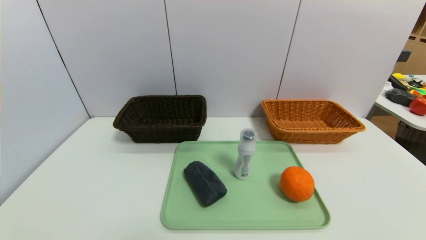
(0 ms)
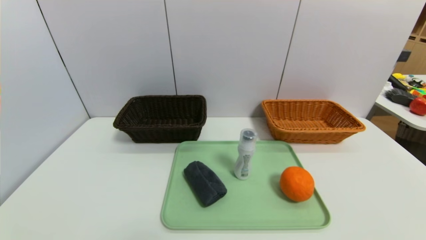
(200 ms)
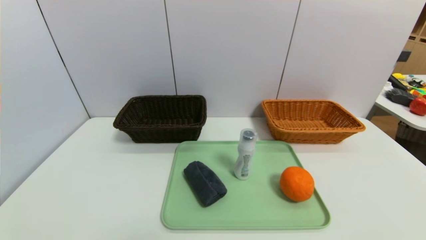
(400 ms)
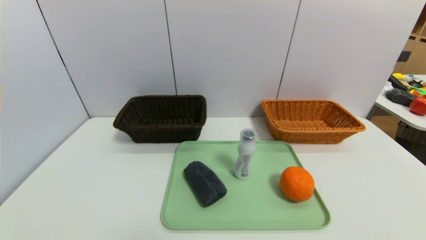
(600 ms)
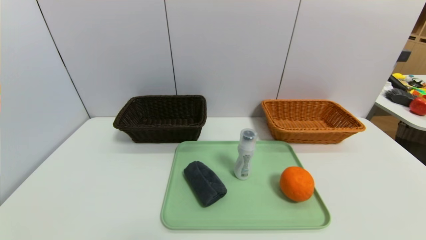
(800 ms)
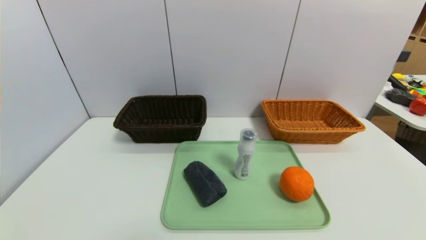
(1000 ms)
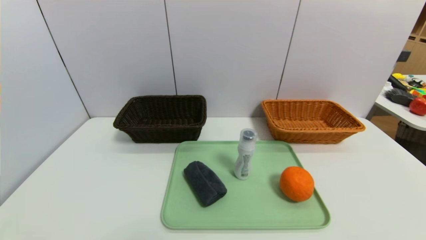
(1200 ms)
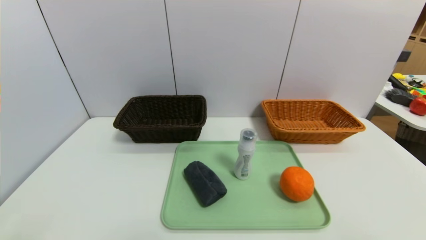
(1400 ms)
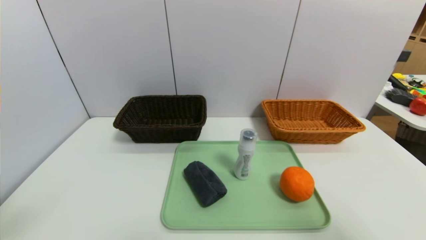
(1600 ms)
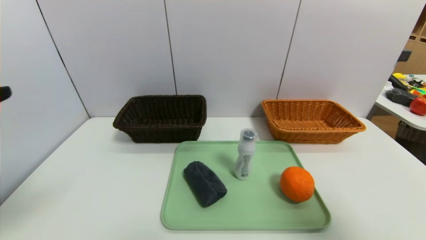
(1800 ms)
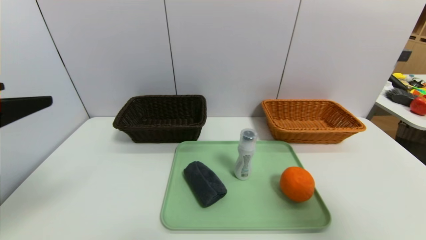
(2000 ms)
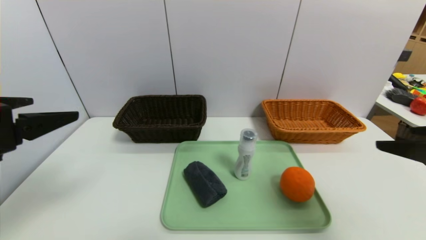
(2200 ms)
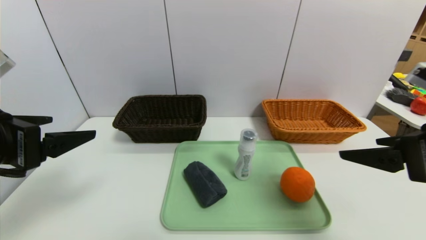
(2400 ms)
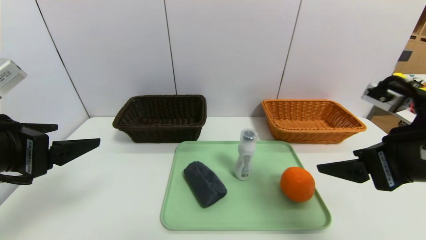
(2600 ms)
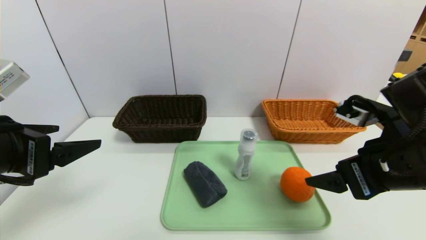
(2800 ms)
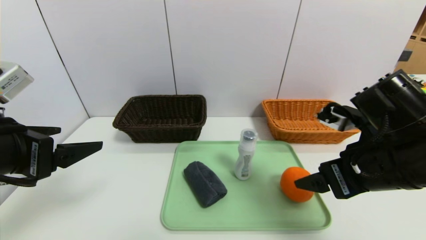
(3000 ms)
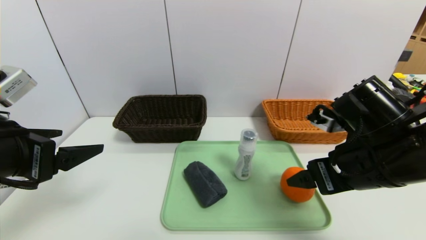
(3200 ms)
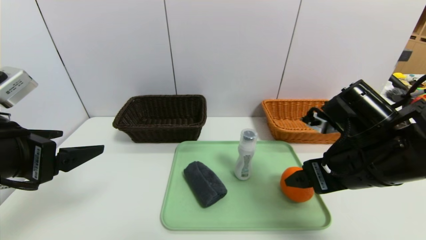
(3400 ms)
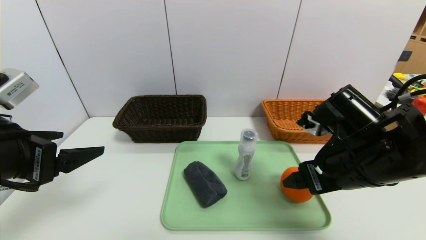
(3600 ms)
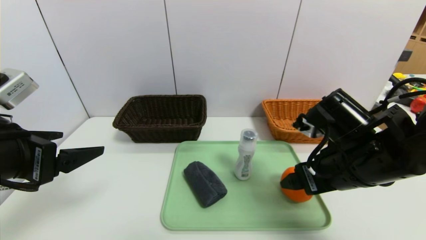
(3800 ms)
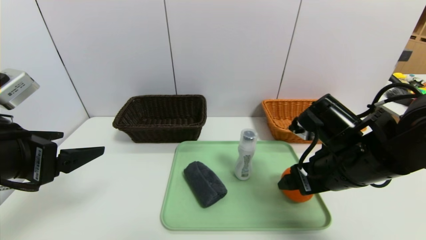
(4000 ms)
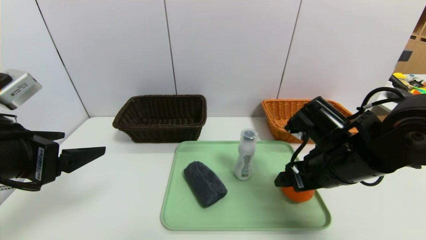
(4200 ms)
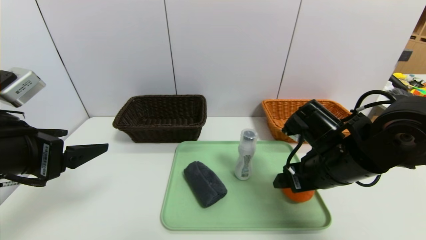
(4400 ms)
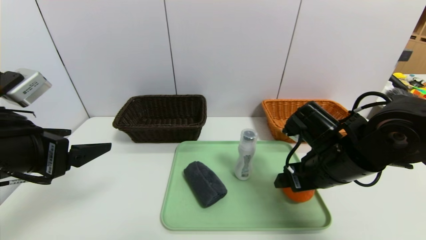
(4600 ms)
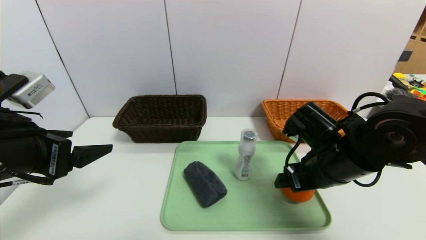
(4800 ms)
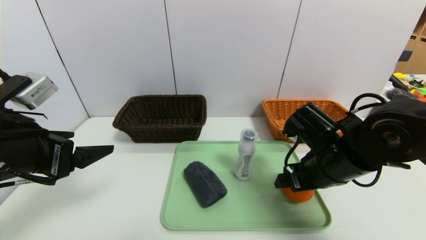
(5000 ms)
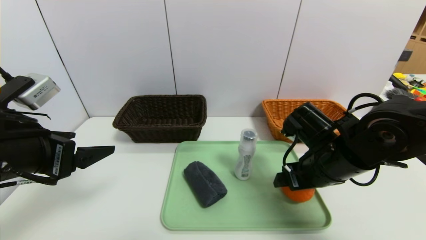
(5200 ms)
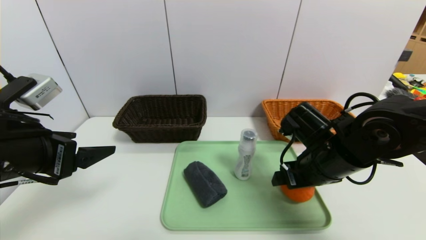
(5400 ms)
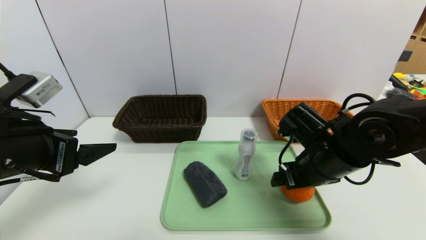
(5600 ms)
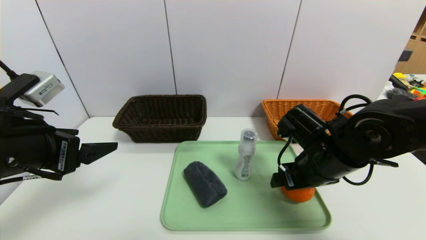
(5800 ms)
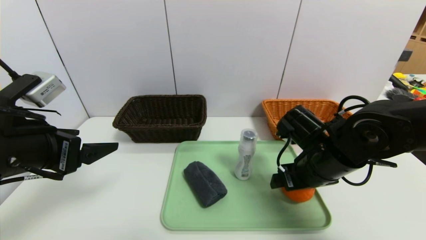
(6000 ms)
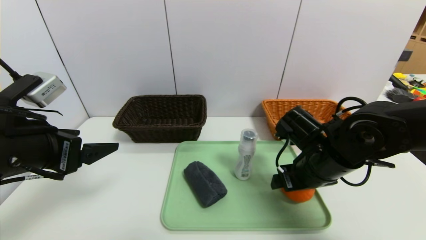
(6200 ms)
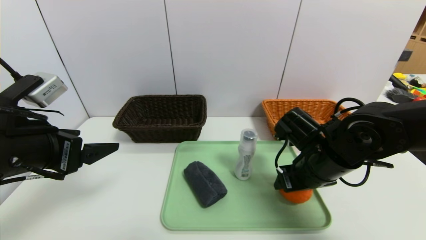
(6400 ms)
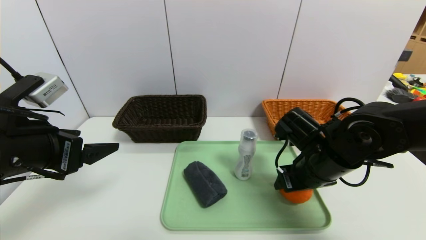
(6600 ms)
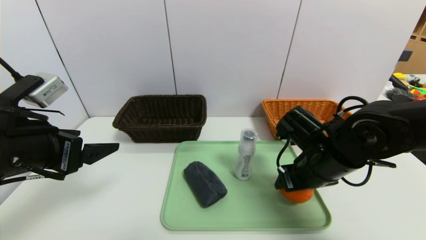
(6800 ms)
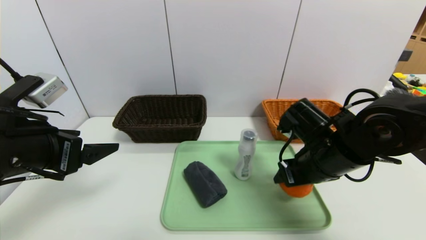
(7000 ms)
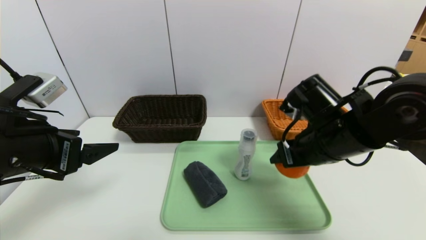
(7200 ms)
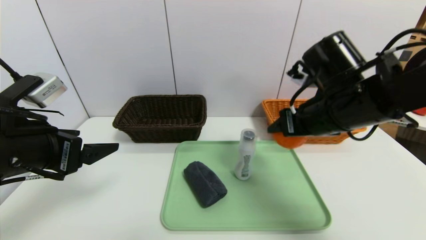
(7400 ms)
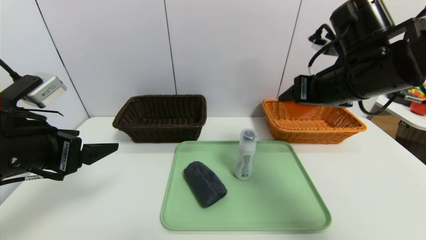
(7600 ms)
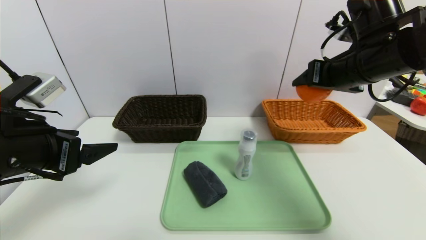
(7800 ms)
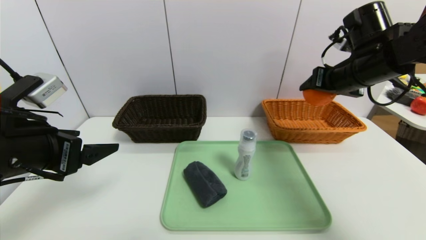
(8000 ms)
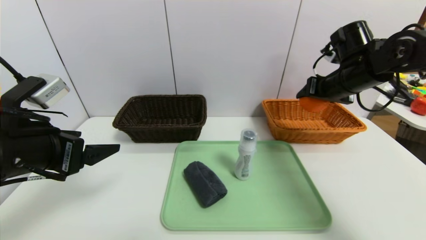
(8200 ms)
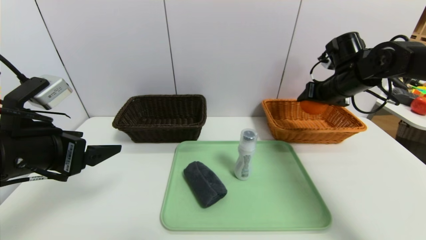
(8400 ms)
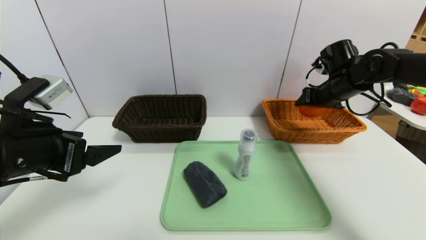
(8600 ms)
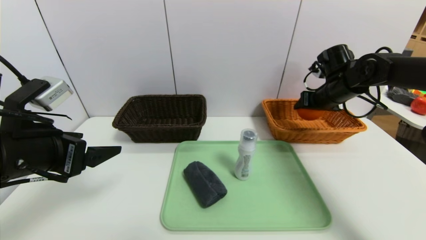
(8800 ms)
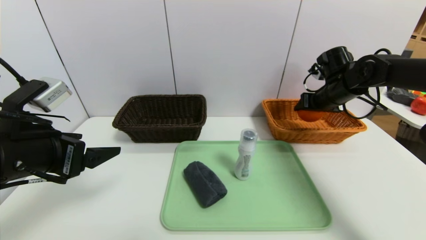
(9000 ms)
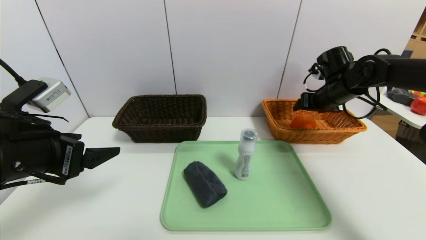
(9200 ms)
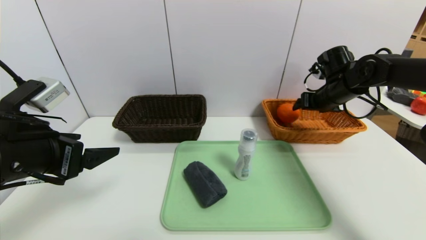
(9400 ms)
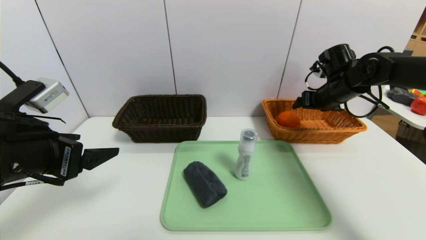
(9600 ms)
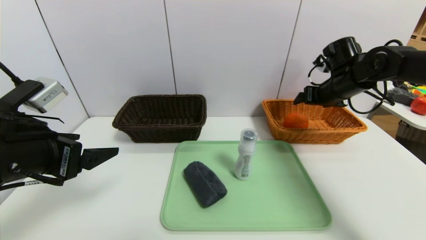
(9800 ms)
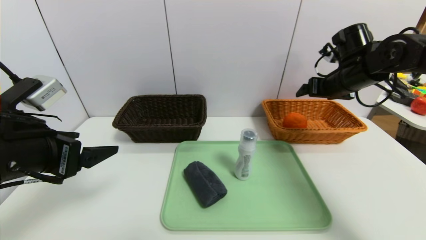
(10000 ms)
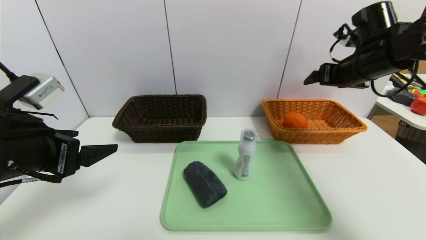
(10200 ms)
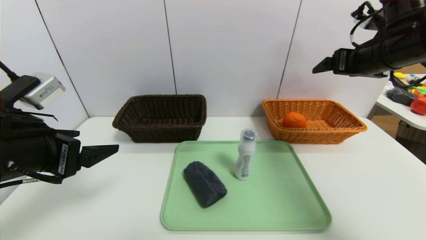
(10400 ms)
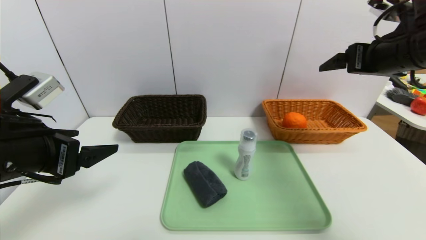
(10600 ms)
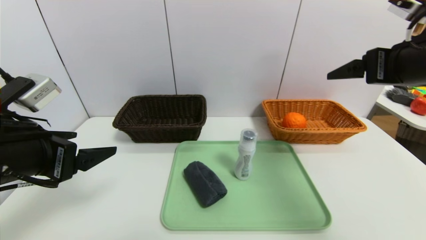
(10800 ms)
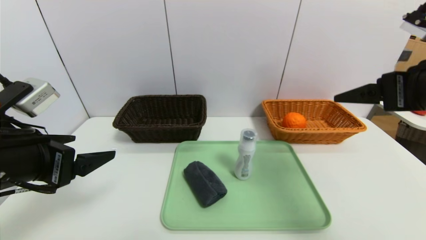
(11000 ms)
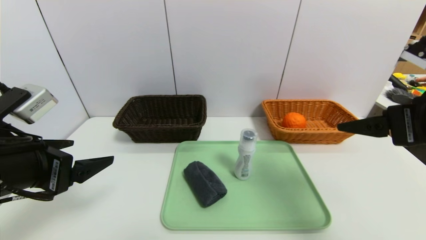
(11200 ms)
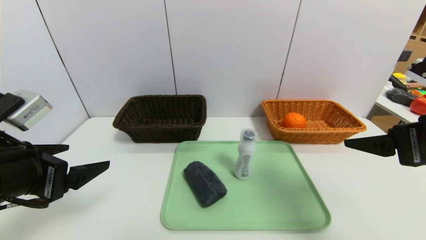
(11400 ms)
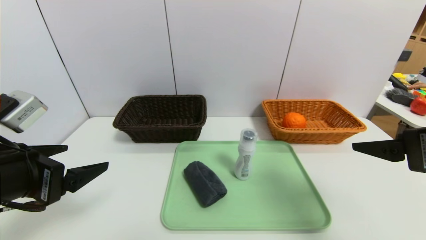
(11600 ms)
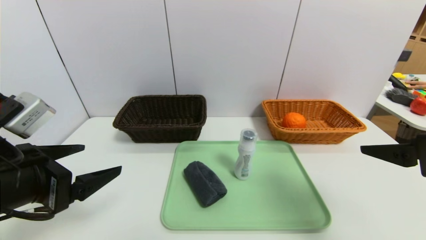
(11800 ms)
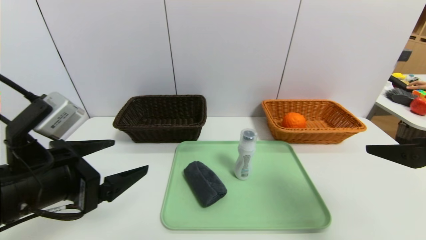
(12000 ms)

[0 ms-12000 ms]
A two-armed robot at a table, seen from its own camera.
Task of the whole recording: place the food in the right basket with the right gripper, and place the non food items in the left basket with the left gripper.
Step, 0 ms to 9600 ms: Grasp the orange and put it in the right basket.
0 ms to 1600 ms: The right gripper travels upward by about 25 cm.
1600 ms to 3000 ms: The left gripper travels forward and downward by some 10 cm; the right gripper is displaced forward, to the left and downward by approximately 20 cm.
3000 ms to 4400 ms: The right gripper heads downward, covering some 5 cm.
4400 ms to 6000 ms: The grippers make only small movements.
6000 ms to 7600 ms: The right gripper moves upward, some 15 cm, and closes its fingers.
7600 ms to 9000 ms: The right gripper travels forward, to the right and downward by about 20 cm.
9000 ms to 10400 ms: The right gripper is displaced upward and backward by about 15 cm, and opens.
10400 ms to 12000 ms: The right gripper shifts approximately 20 cm backward.

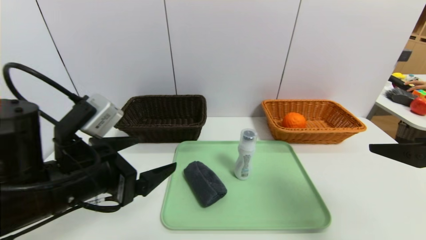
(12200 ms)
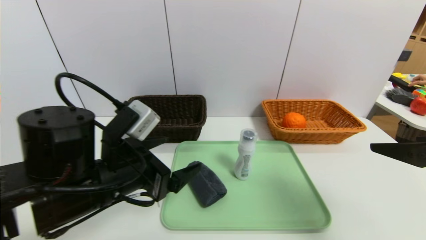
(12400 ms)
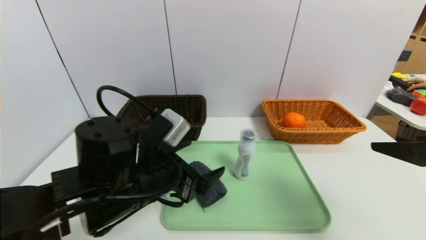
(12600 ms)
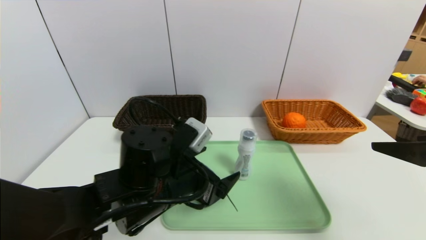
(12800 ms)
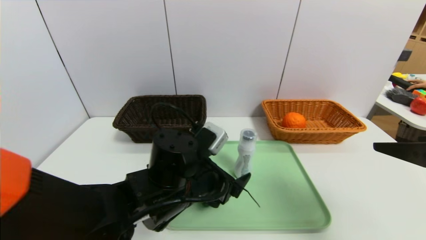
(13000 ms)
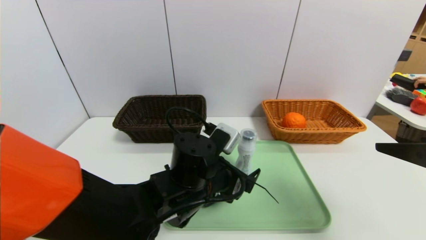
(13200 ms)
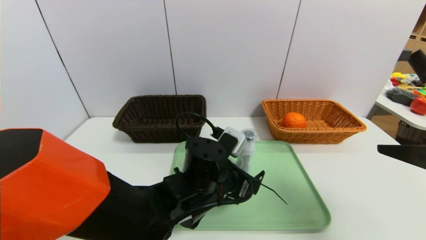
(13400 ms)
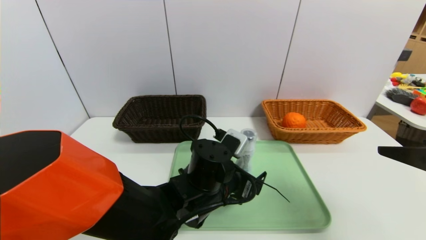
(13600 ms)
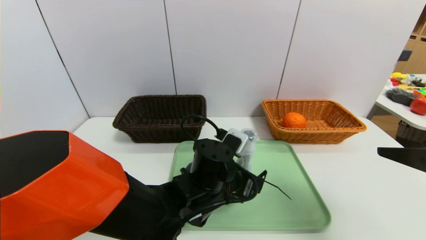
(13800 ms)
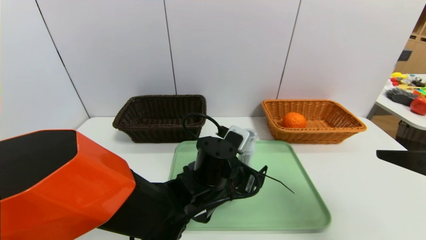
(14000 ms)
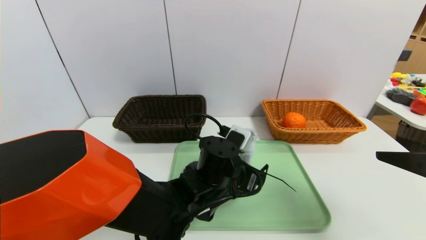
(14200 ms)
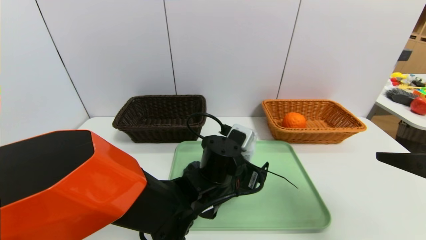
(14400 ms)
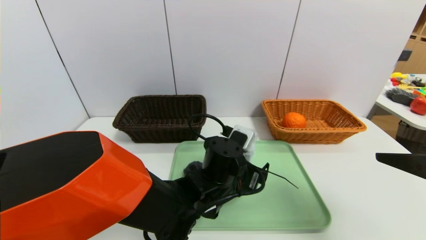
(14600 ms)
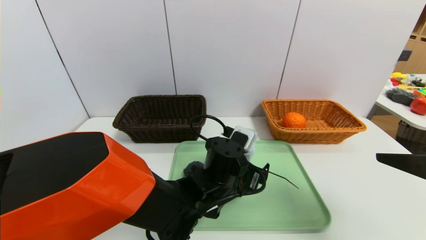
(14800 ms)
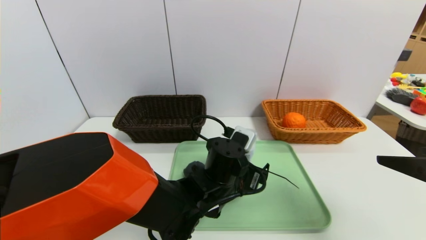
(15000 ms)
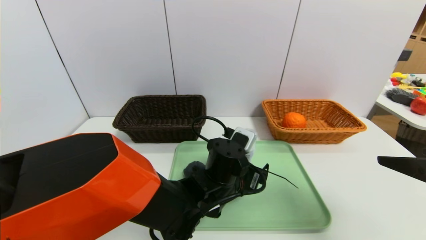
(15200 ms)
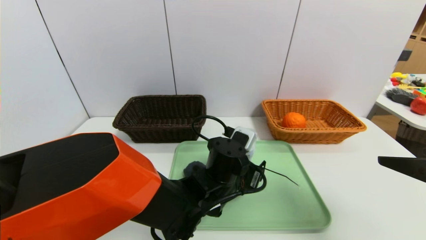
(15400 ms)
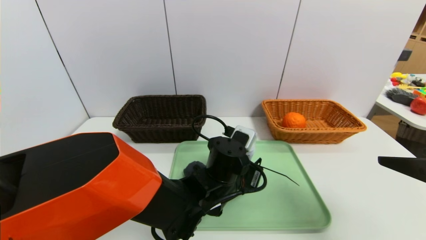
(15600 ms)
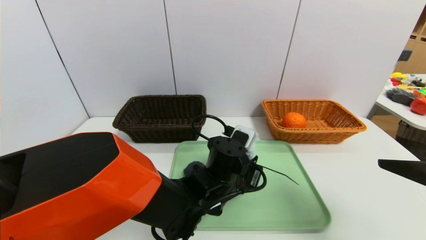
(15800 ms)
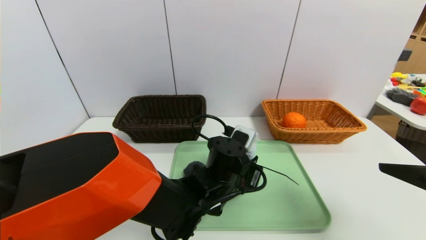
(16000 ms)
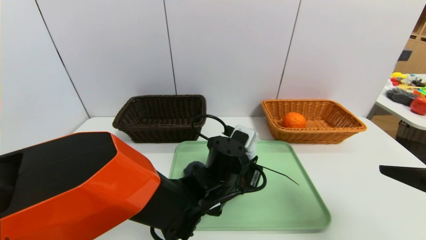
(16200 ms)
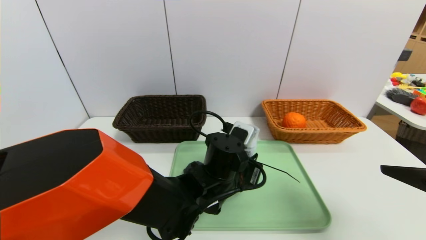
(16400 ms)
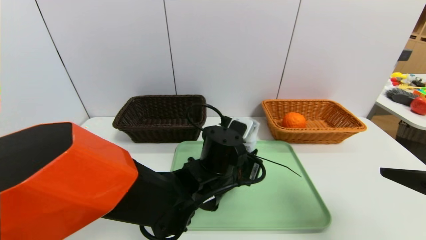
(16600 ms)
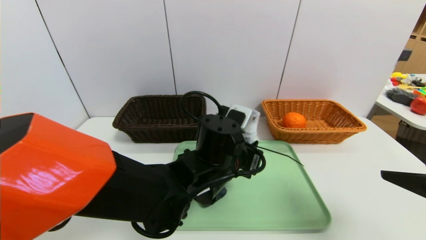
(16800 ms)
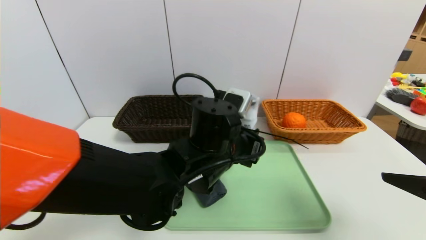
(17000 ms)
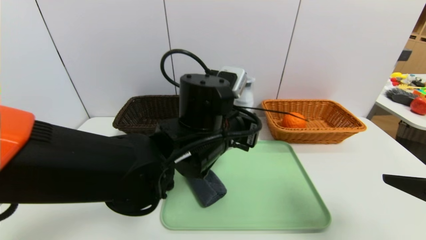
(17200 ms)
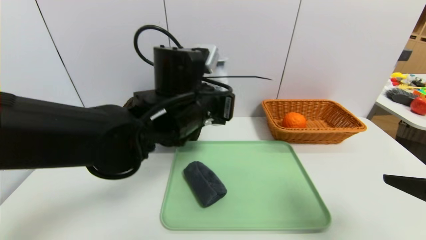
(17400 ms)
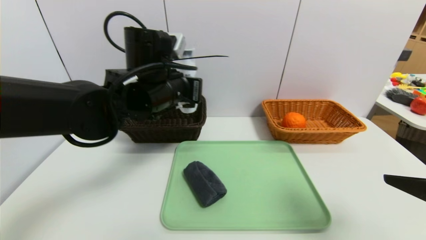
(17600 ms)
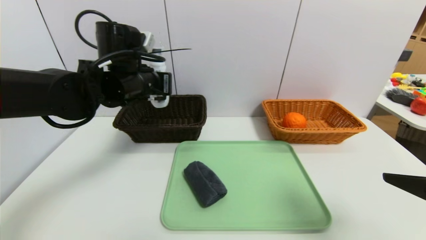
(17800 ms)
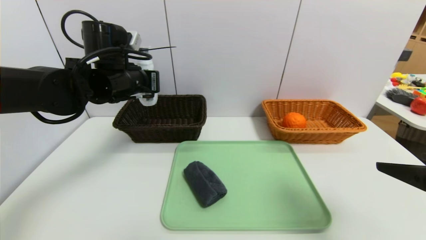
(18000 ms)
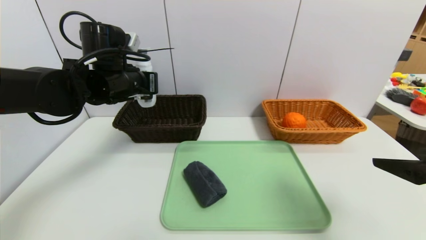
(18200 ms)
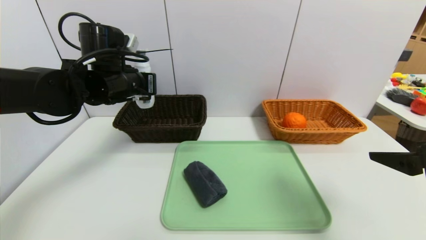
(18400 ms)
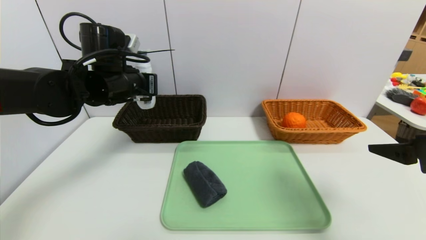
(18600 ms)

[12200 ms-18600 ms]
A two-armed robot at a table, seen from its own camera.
Task of the whole recording: place the food in the right basket with the right gripper, and place the non food items in the left basket with the left gripper.
12200 ms to 13800 ms: The left gripper is displaced to the right, downward and forward by about 20 cm.
13800 ms to 15400 ms: There are only small adjustments of the grippers.
15400 ms to 17000 ms: The left gripper moves upward, some 10 cm, and closes its fingers.
17000 ms to 18600 ms: The left gripper travels to the left, forward and upward by roughly 25 cm.
